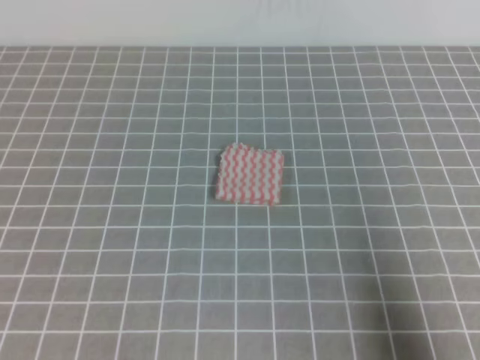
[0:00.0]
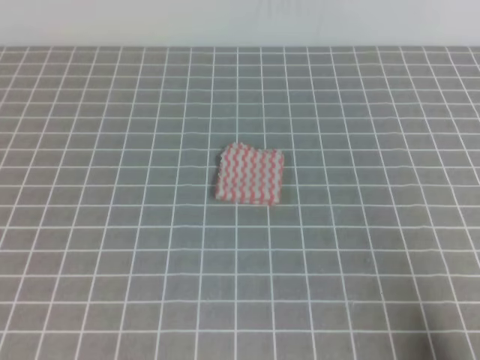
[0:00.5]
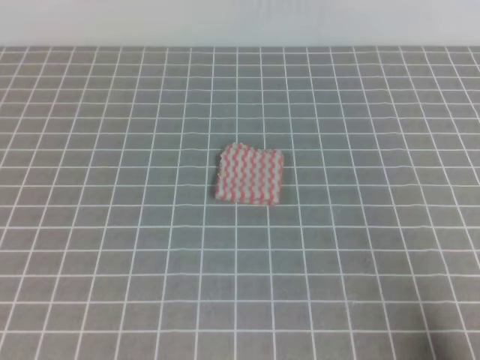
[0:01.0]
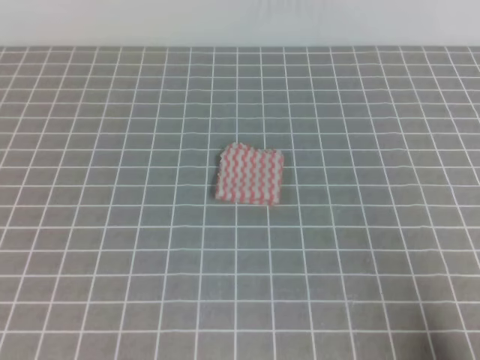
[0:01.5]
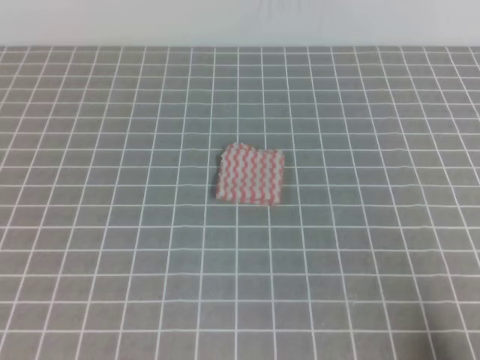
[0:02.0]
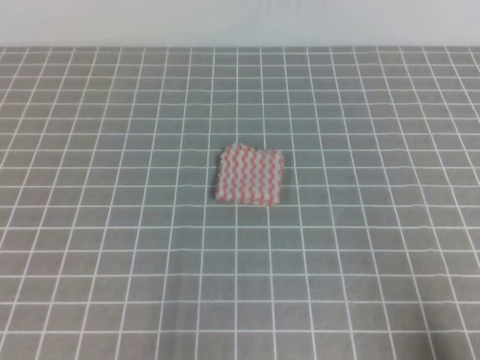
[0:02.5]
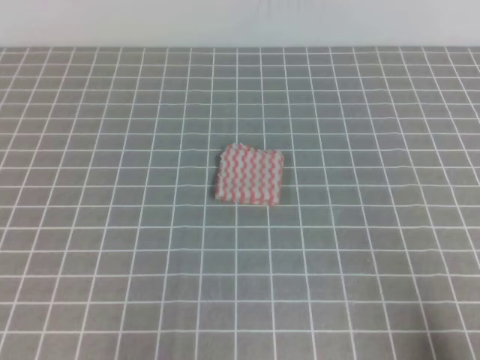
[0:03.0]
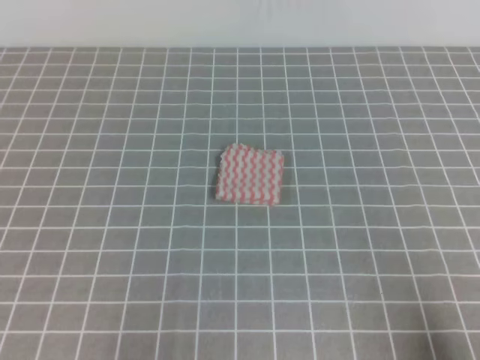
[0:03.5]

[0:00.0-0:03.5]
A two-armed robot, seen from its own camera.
Step, 0:00.0 to 0:03.5: Fold the towel.
0:00.0 to 0:02.0: The right gripper is displaced downward by roughly 5 cm.
